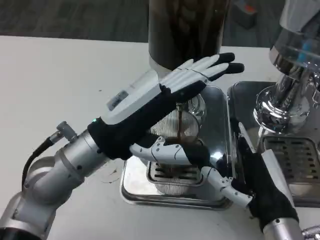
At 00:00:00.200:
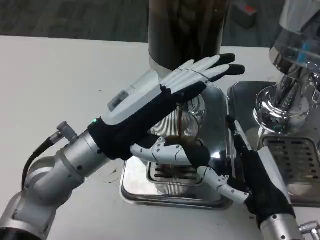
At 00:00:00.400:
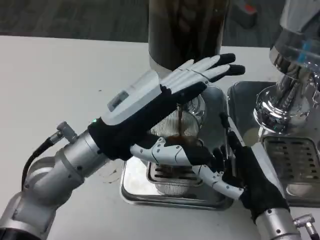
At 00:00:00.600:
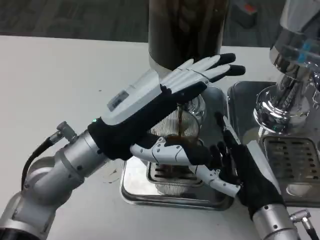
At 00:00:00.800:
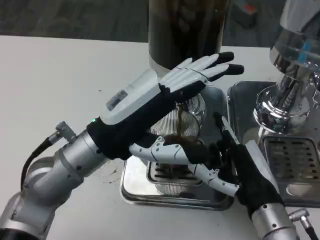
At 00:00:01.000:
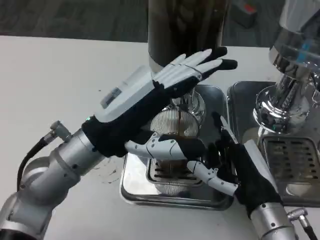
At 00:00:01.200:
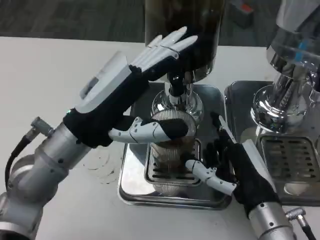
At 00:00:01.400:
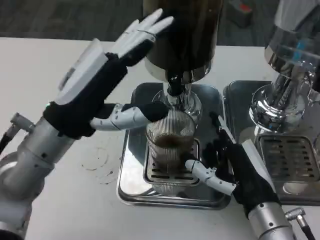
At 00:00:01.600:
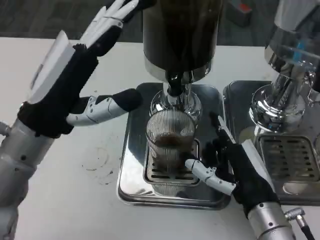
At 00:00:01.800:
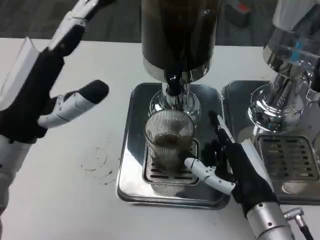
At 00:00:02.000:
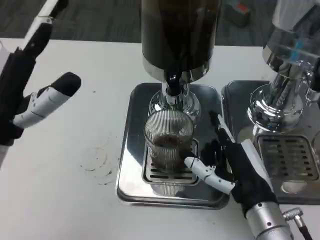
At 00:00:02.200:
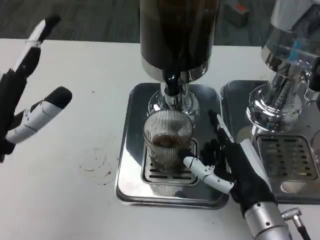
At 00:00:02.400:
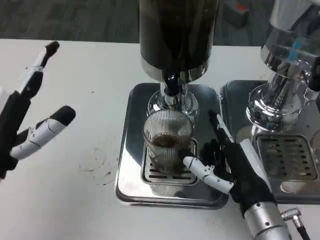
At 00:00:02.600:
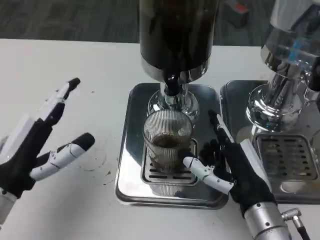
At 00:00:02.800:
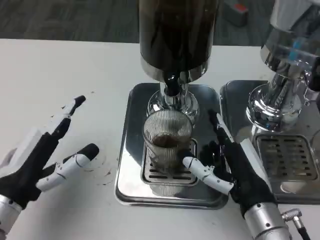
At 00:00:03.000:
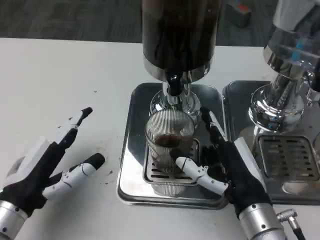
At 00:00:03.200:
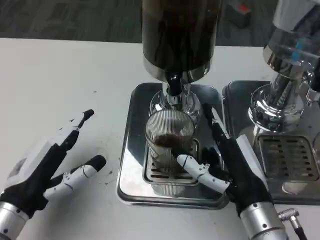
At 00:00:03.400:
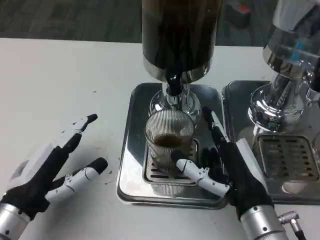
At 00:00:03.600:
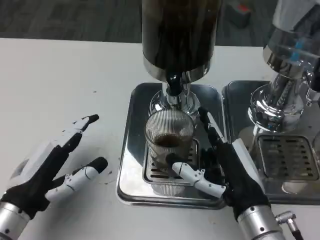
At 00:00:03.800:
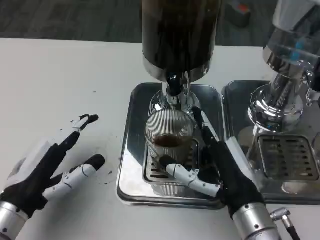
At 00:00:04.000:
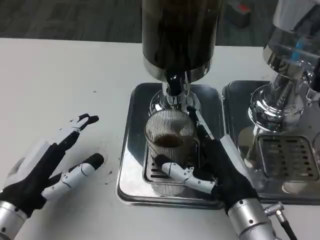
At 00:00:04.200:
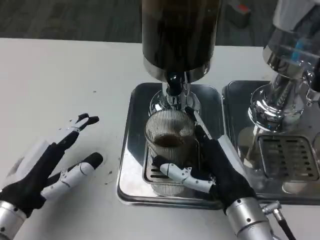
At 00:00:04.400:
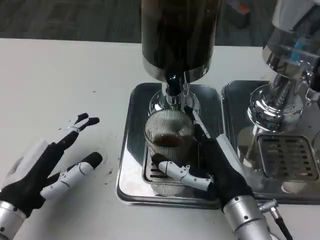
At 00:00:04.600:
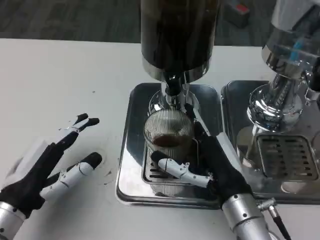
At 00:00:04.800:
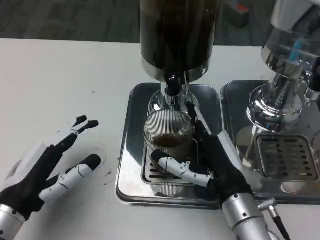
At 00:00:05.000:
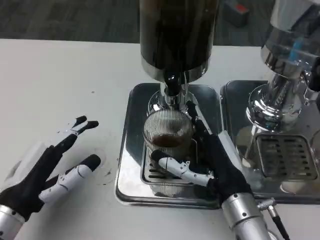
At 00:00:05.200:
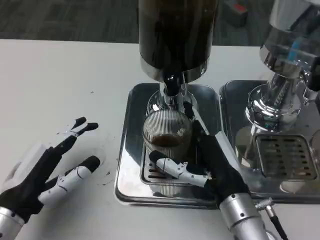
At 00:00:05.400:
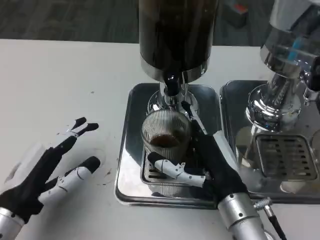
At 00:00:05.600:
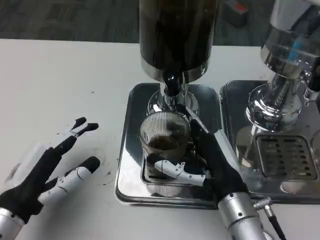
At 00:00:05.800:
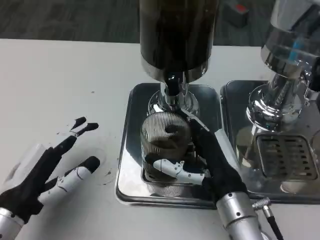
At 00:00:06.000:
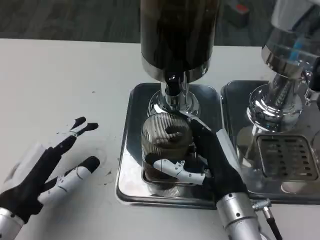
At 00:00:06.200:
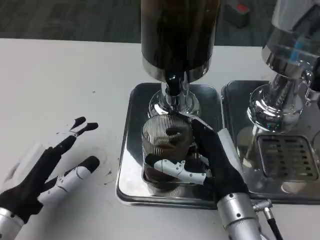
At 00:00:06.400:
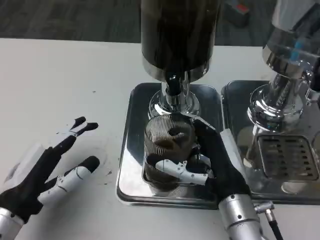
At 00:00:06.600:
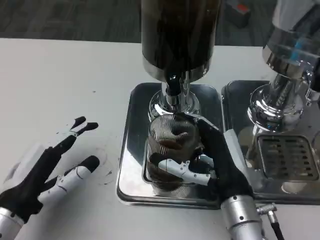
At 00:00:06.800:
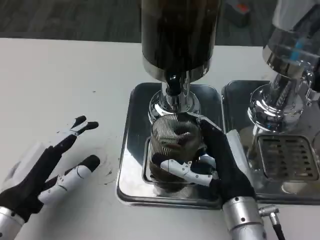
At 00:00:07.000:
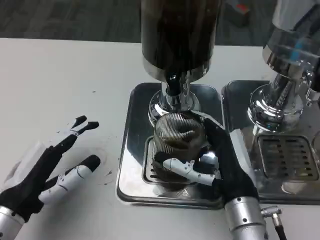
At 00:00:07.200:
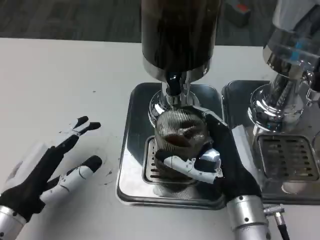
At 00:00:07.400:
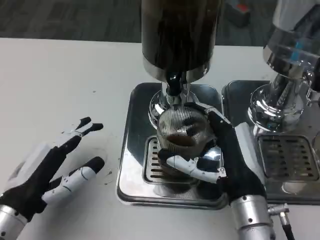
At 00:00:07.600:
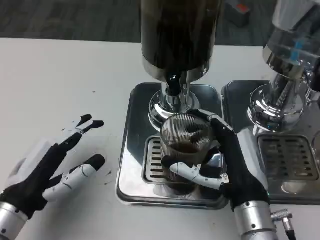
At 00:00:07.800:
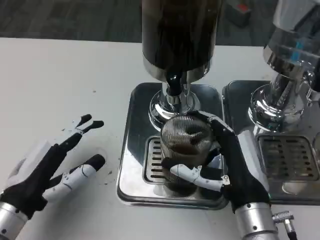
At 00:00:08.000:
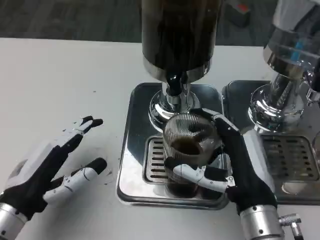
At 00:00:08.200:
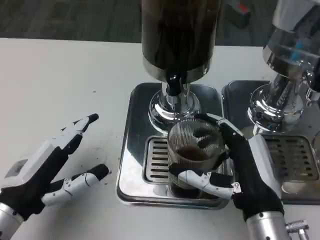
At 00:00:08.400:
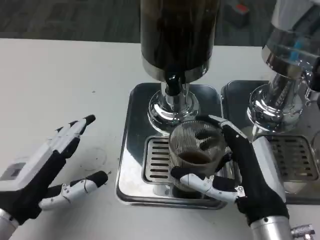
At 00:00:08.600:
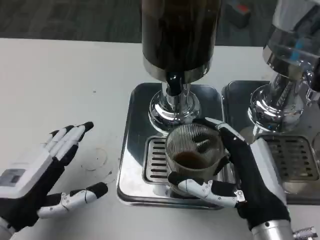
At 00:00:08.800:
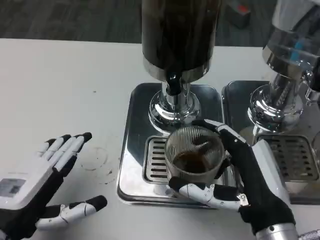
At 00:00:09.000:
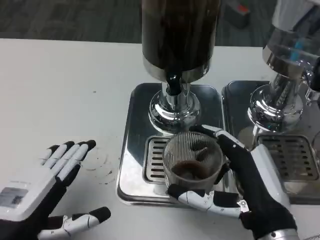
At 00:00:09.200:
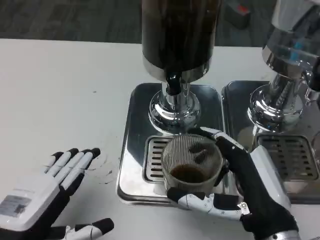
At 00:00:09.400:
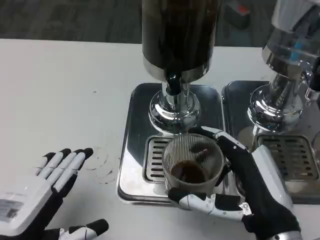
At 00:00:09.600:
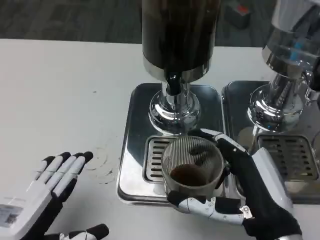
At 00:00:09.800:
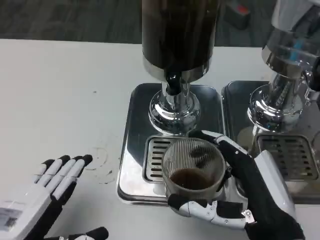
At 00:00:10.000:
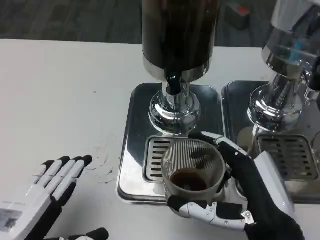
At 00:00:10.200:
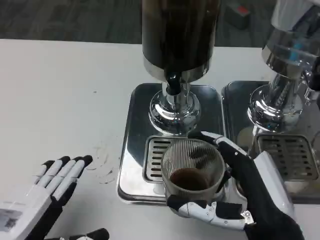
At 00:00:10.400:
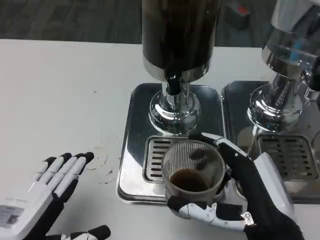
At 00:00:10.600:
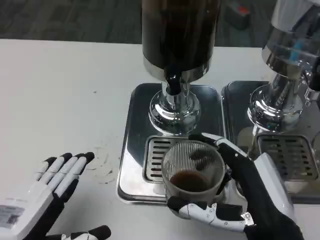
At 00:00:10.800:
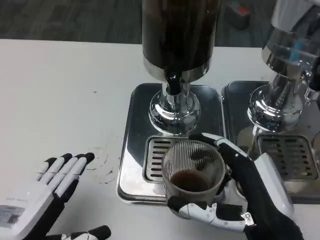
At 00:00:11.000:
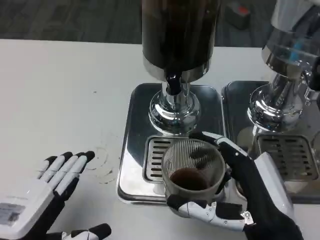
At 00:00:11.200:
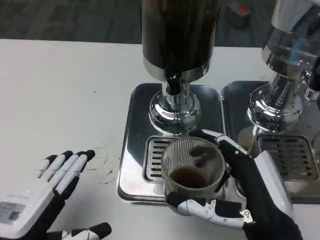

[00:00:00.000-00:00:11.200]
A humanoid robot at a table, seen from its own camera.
Task of the whole recording: Grasp the cup under the faucet to collect the drink, then remove the cup.
00:00:00.000 to 00:00:01.600: The left hand heads to the left, covering some 5 cm.
00:00:01.600 to 00:00:03.200: The left hand travels downward and backward by about 10 cm.
00:00:03.200 to 00:00:08.000: The hands stay close to where they were, moving slightly.
00:00:08.000 to 00:00:09.600: The right hand moves roughly 5 cm. Meanwhile the left hand goes roughly 10 cm backward.
00:00:09.600 to 00:00:11.200: Both hands stay put.

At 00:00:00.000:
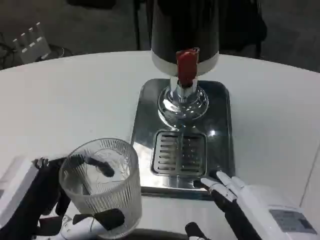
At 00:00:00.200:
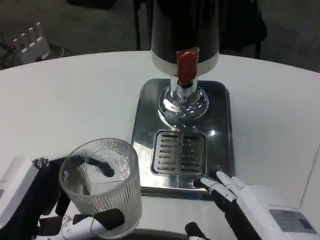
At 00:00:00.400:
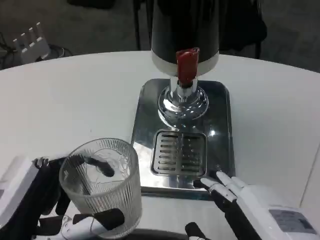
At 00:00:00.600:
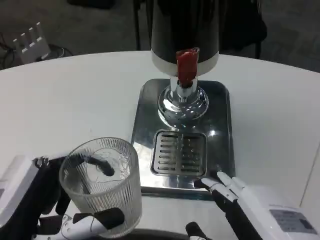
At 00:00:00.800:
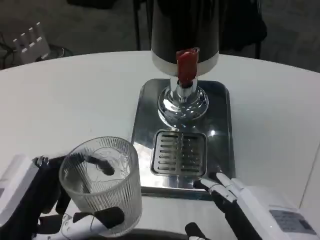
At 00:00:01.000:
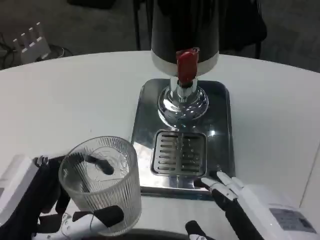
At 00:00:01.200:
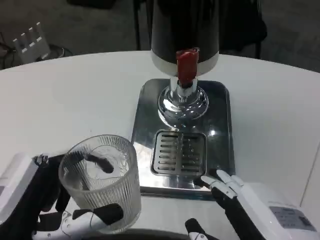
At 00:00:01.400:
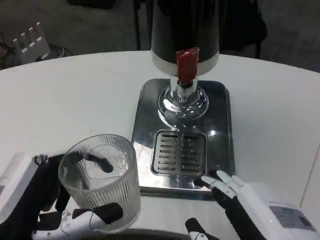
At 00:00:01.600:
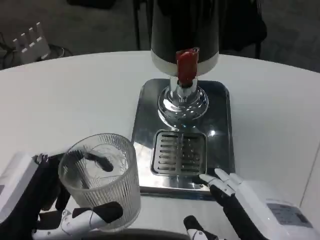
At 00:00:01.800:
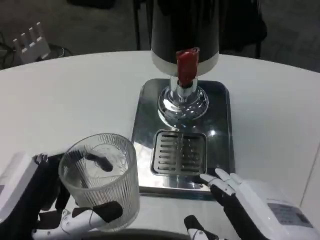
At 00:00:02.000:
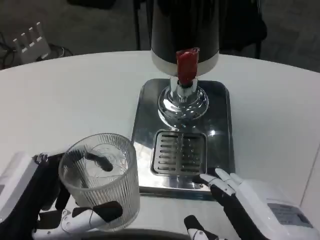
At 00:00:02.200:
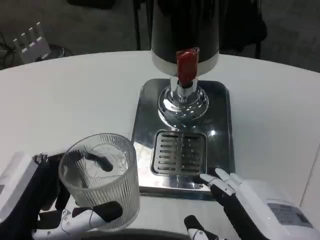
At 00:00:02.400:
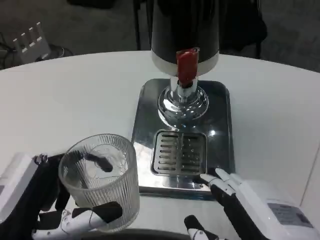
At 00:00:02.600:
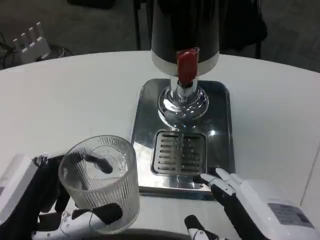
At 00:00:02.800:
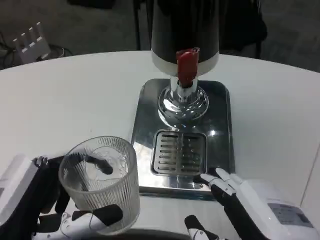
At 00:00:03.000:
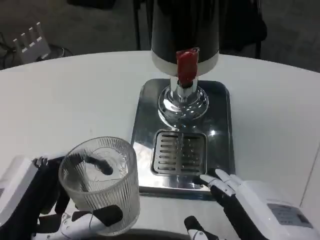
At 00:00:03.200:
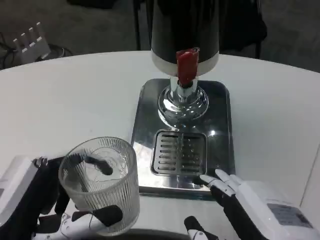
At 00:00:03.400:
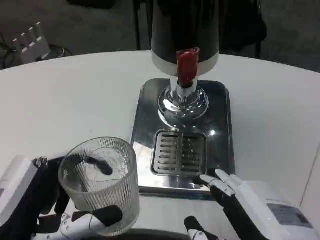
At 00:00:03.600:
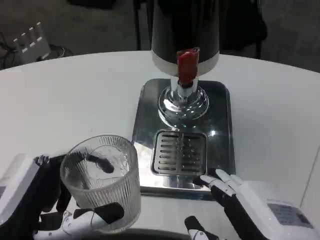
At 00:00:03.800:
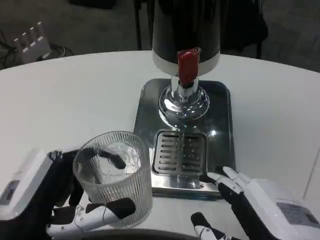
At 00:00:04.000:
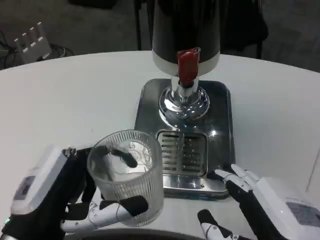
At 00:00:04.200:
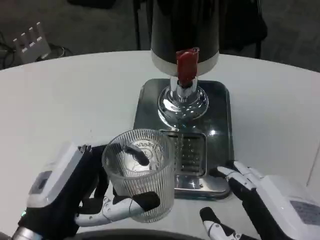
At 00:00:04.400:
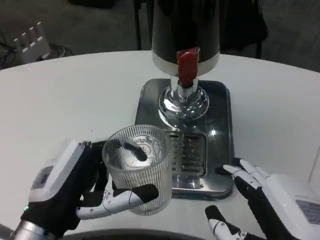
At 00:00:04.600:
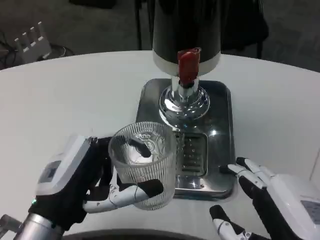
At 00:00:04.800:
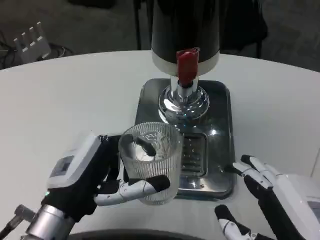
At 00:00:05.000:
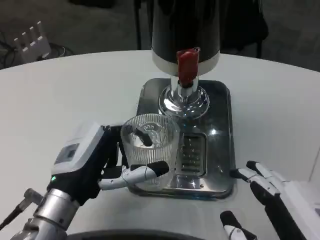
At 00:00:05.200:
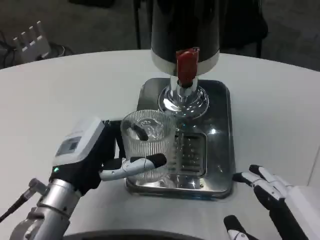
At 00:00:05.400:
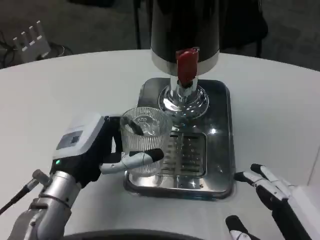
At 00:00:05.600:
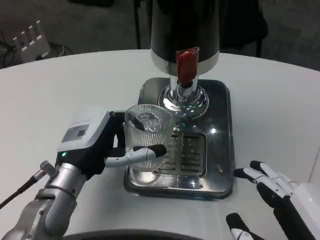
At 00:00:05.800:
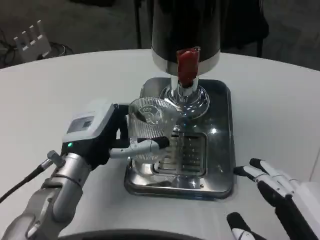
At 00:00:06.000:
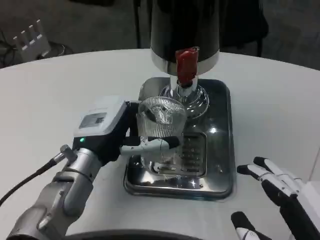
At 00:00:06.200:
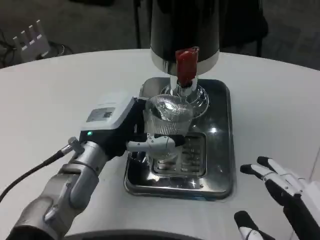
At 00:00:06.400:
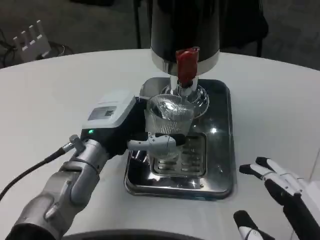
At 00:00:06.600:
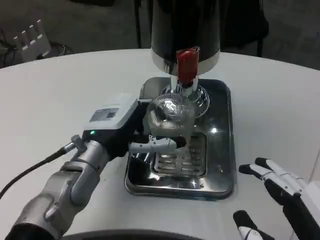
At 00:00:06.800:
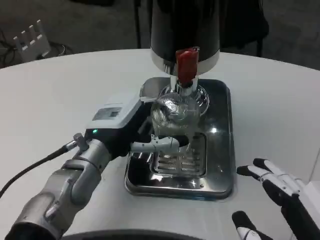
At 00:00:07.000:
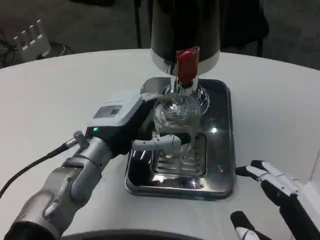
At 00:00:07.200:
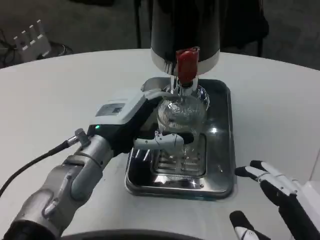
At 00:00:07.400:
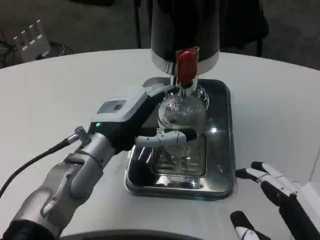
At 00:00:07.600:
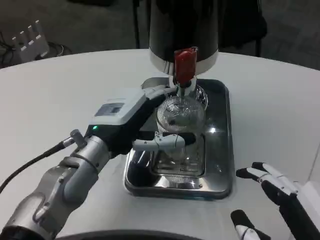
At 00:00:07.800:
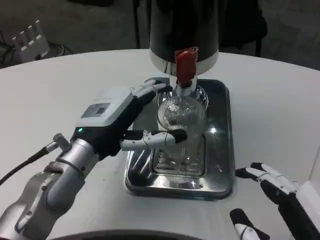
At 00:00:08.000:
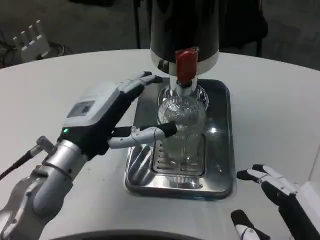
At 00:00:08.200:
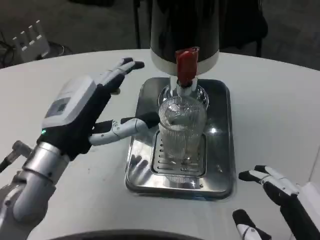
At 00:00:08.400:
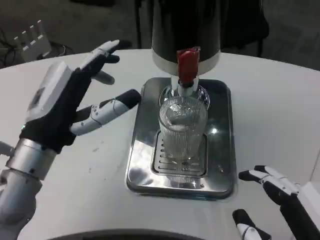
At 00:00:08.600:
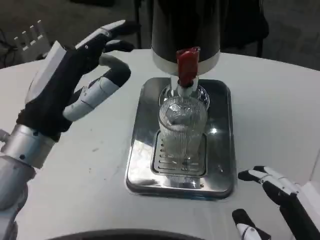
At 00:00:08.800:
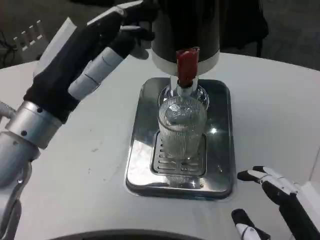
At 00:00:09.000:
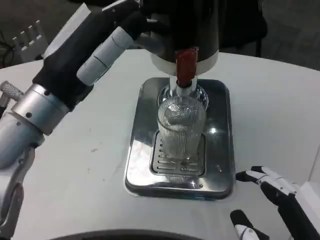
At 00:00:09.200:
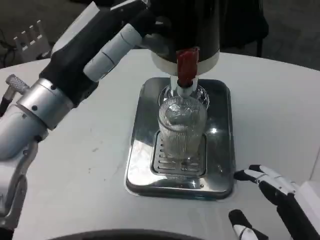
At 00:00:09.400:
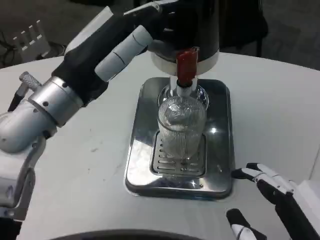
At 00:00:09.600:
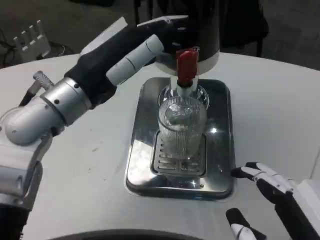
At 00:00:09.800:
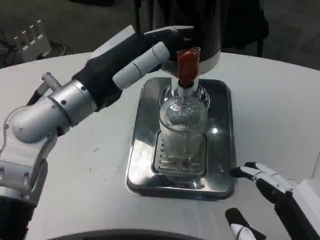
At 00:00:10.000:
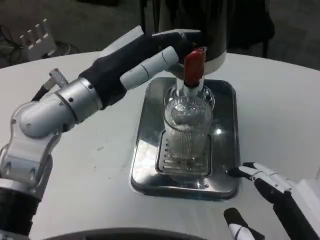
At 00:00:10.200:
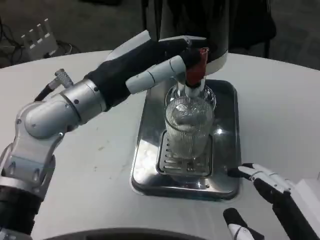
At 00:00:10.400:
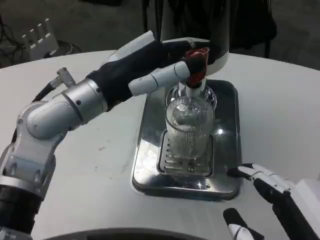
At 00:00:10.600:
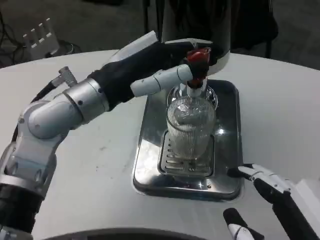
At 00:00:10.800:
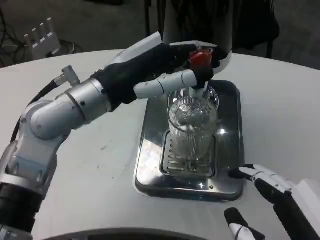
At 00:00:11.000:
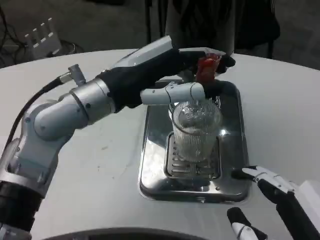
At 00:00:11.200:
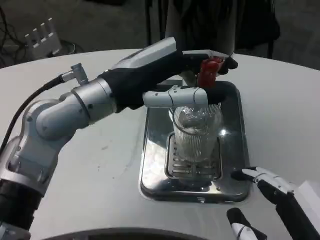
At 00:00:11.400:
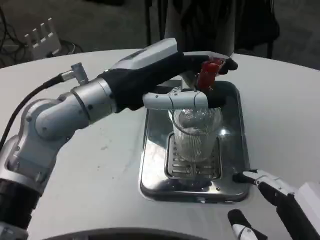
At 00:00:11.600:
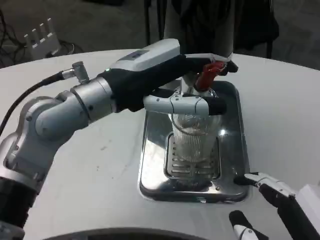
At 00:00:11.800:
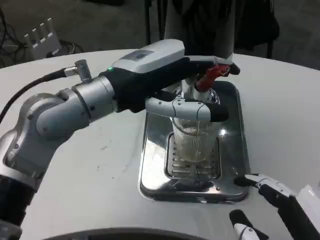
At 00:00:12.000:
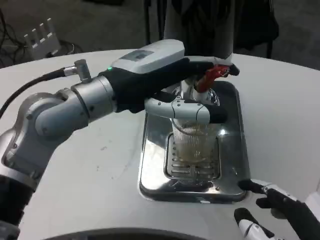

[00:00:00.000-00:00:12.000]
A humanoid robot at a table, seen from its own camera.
Task of the whole recording: Grasp the cup under the faucet to collect the drink, then remove the cup.
00:00:00.000 to 00:00:03.000: Both hands stay put.
00:00:03.000 to 00:00:04.400: The left hand shifts by some 5 cm.
00:00:04.400 to 00:00:06.000: The left hand goes approximately 15 cm forward.
00:00:06.000 to 00:00:07.600: The hands stay close to where they were, moving slightly.
00:00:07.600 to 00:00:09.000: The left hand shifts some 10 cm upward.
00:00:09.000 to 00:00:10.400: The left hand changes place by roughly 5 cm.
